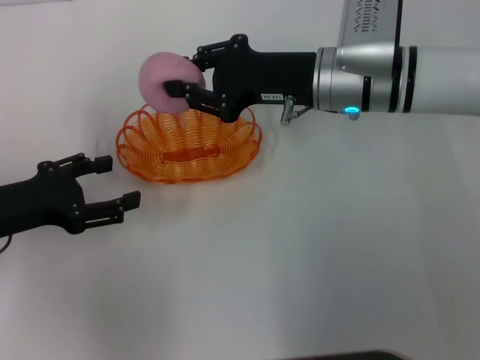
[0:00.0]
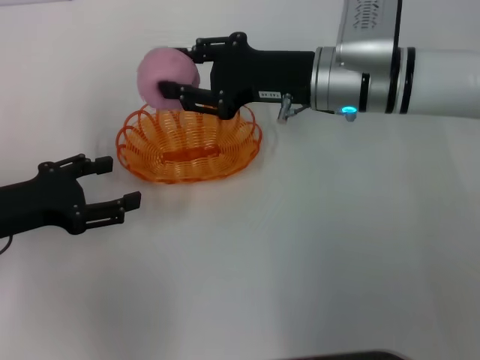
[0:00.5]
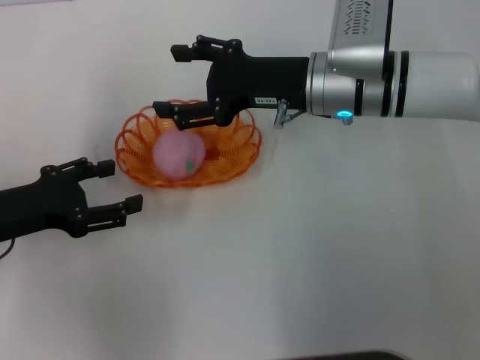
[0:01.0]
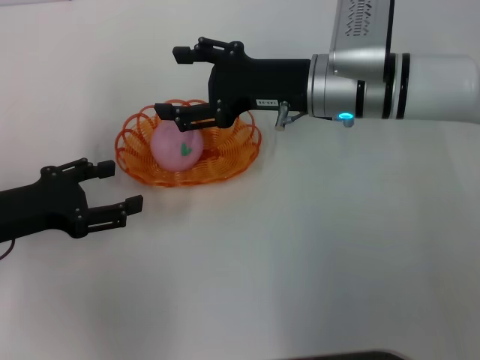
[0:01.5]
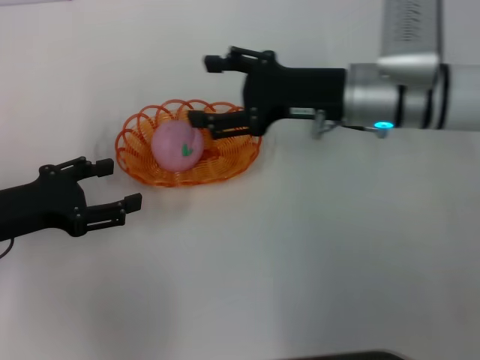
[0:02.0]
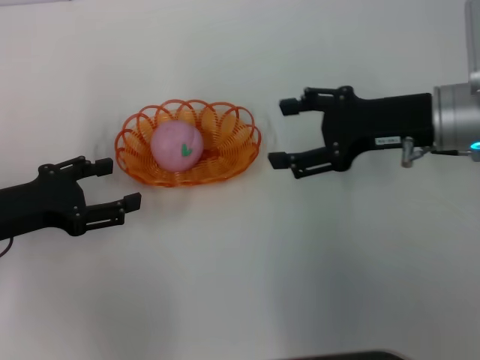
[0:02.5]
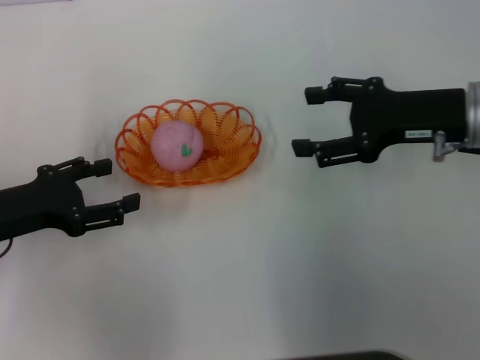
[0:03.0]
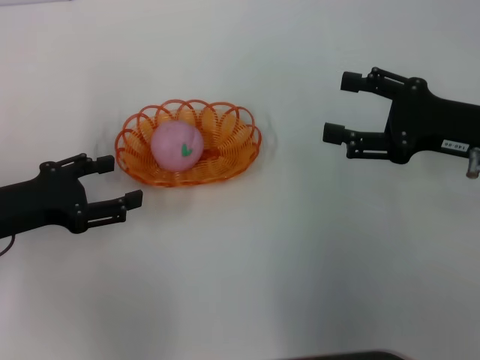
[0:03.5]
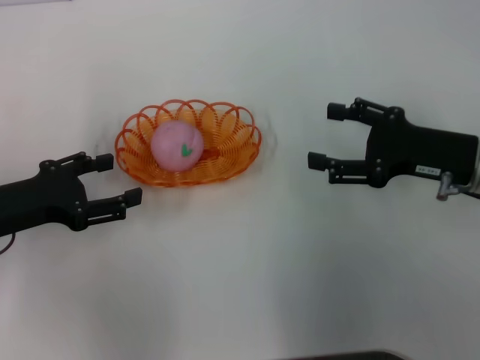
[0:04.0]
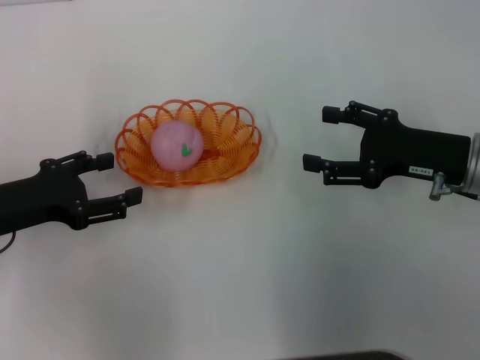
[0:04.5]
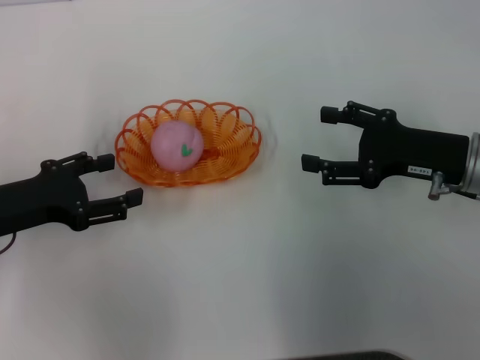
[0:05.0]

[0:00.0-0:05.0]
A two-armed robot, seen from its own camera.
Step, 0:00.0 to 0:02.0: Place the peach into the basket with the right gripper.
0:00.0 to 0:02.5: The right gripper travels to the right and backward by approximately 10 cm, and opens.
0:02.5 to 0:05.0: The right gripper shifts some 5 cm downward.

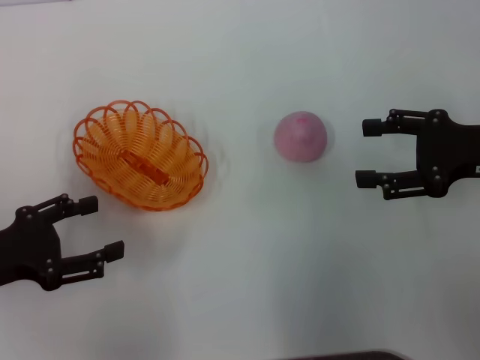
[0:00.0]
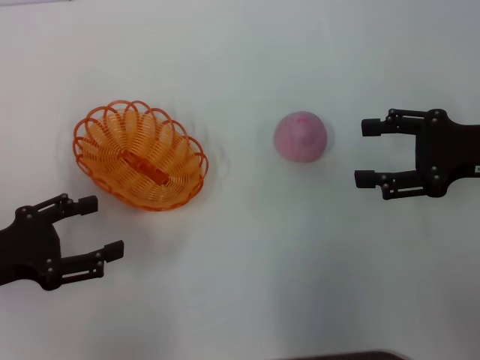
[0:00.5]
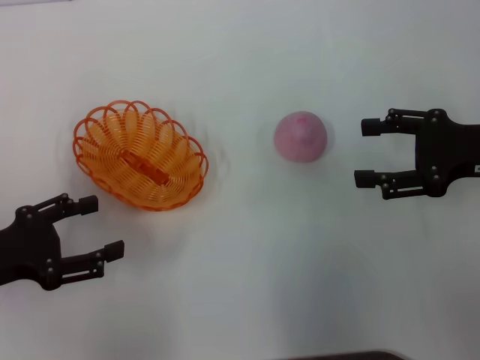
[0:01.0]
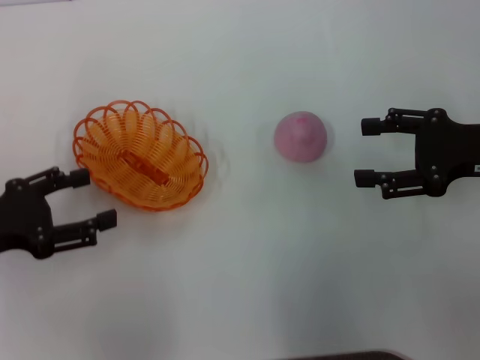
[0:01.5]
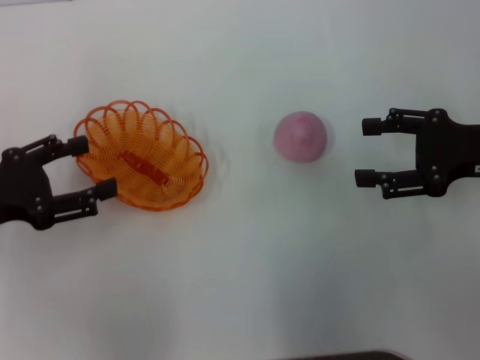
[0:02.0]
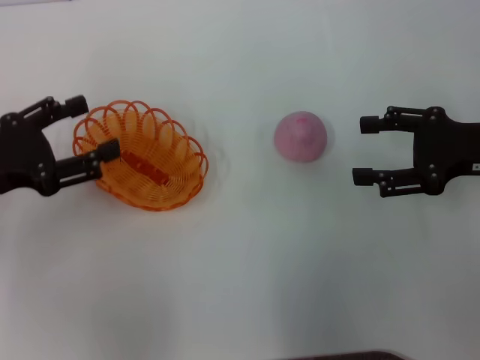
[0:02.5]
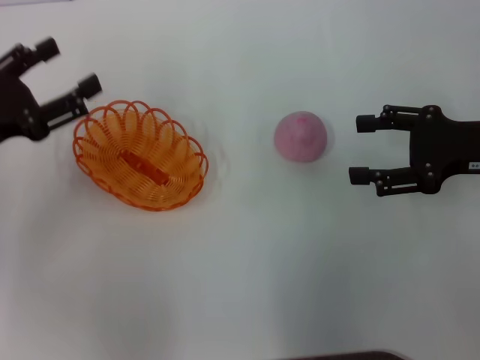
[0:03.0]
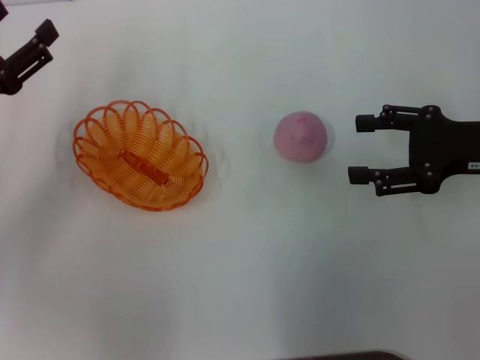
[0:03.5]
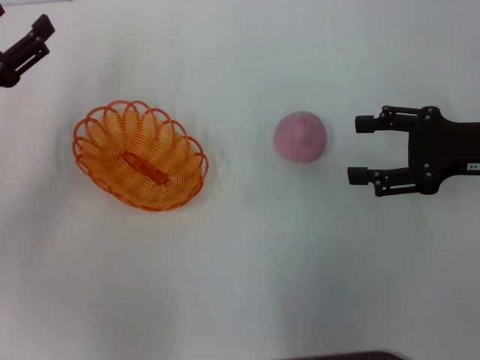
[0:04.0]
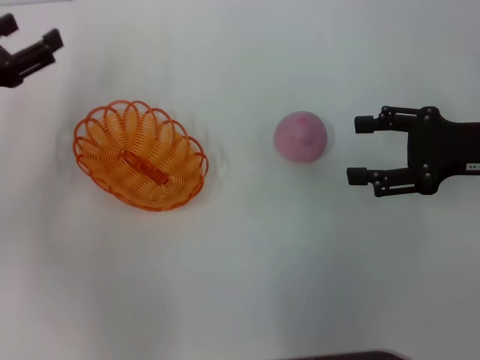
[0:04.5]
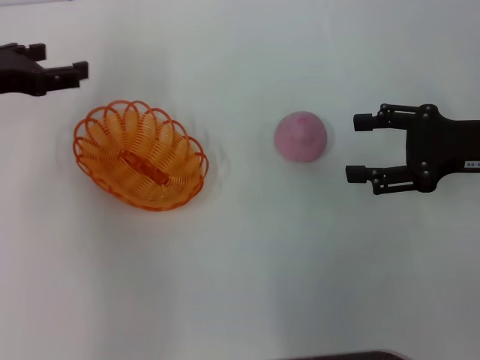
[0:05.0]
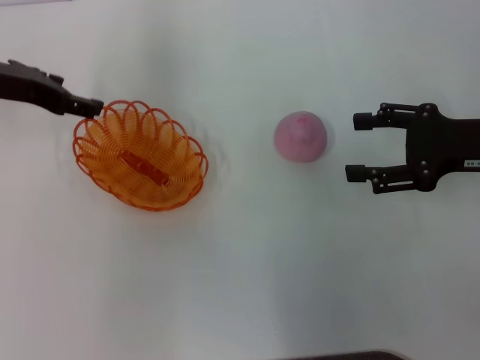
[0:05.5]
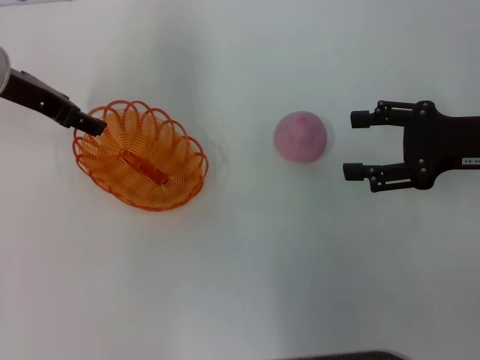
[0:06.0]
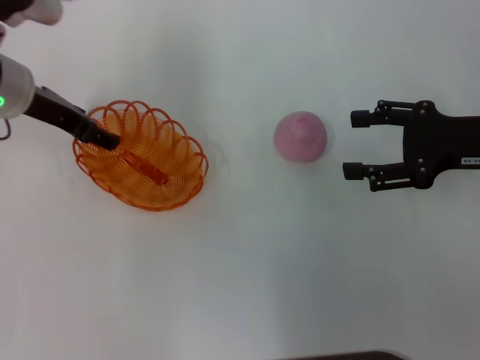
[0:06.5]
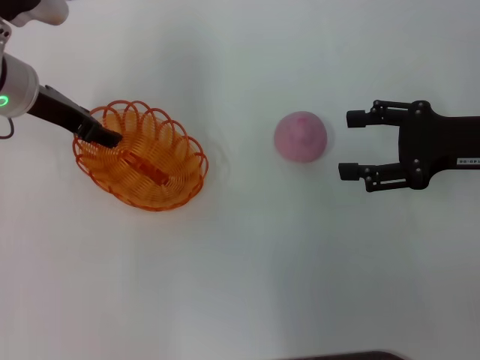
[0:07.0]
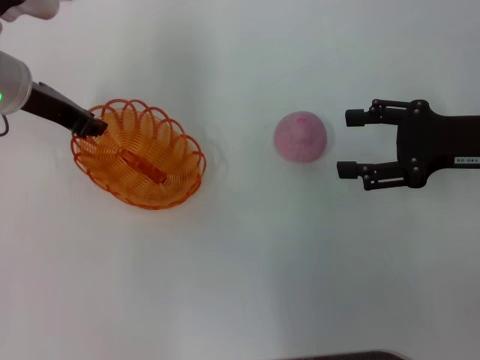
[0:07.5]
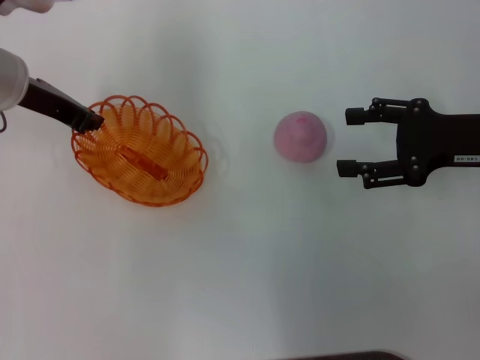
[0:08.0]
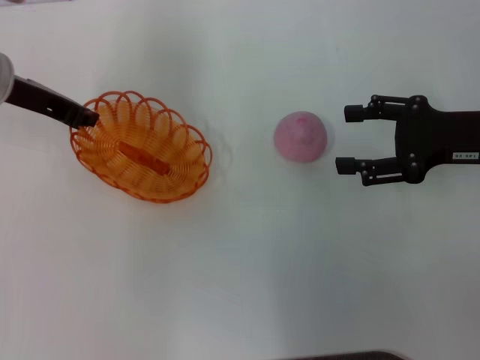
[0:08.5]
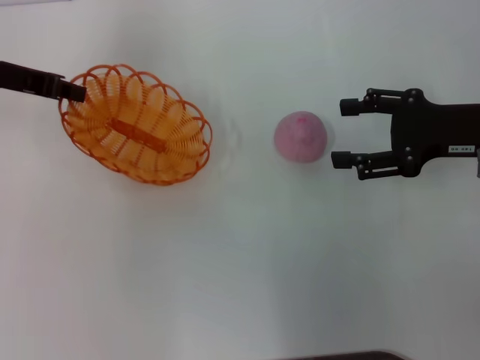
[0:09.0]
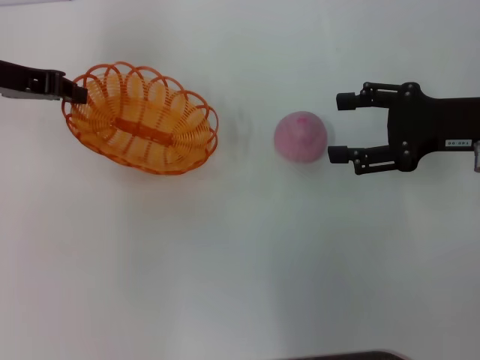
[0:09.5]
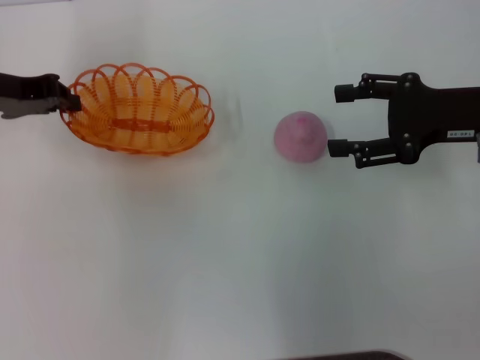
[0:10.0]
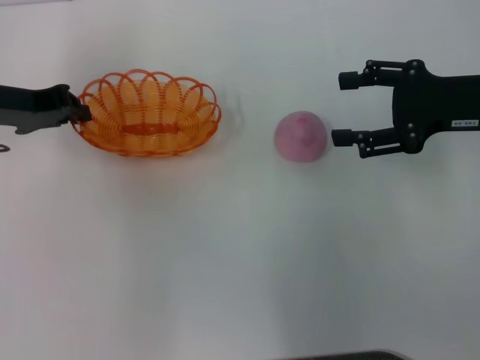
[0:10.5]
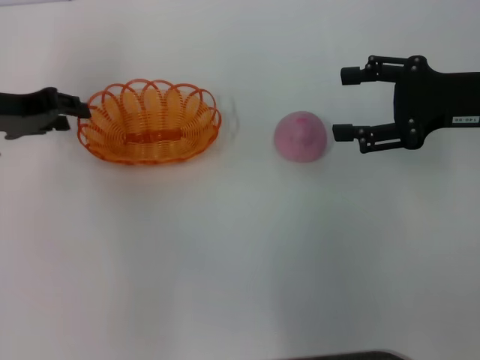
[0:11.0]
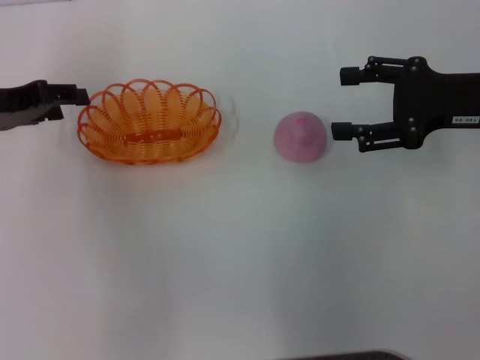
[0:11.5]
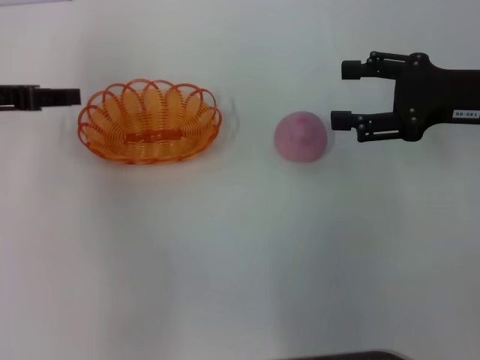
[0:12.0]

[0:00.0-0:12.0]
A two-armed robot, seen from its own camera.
Step, 0:00.0 to 0:08.5: Pick up the basket with the left gripper.
0:00.0 to 0:02.0: The grippers move only a little.
0:02.0 to 0:04.0: The left gripper shifts roughly 5 cm forward.
0:04.0 to 0:06.0: The left gripper goes some 15 cm forward, to the right and upward.
0:06.0 to 0:08.0: The left gripper closes up.
0:08.0 to 0:10.0: The left gripper is displaced to the left by roughly 5 cm.
0:10.0 to 0:12.0: The left gripper opens up.

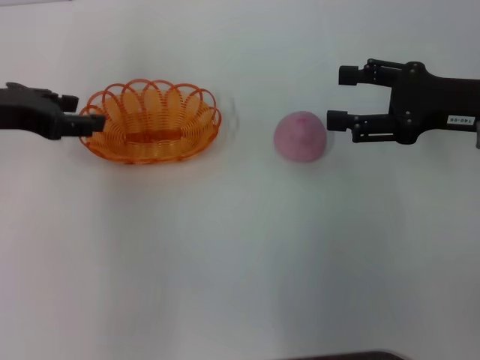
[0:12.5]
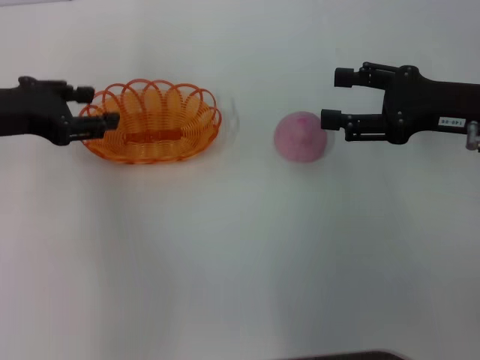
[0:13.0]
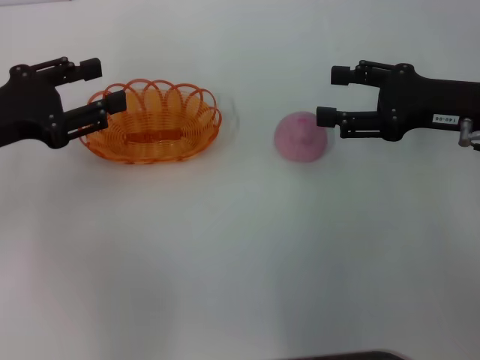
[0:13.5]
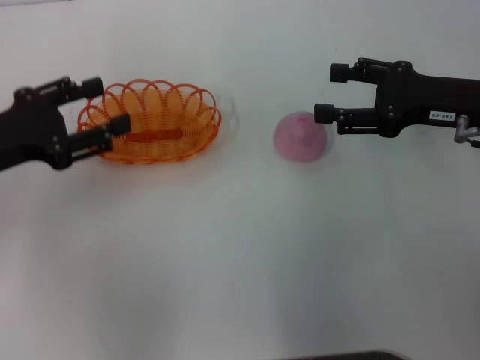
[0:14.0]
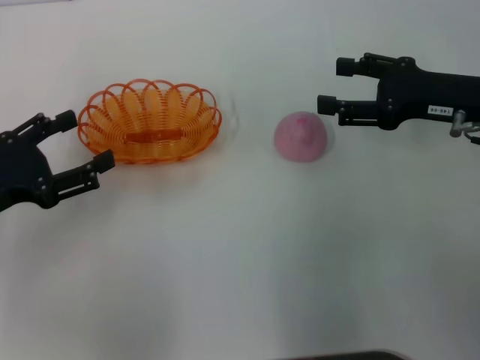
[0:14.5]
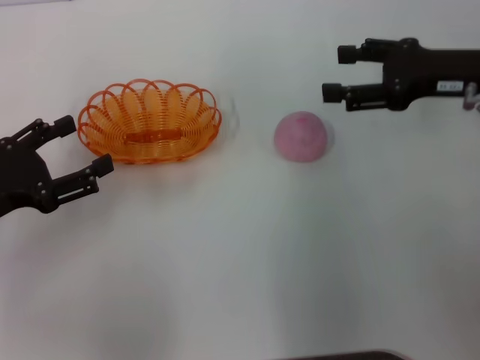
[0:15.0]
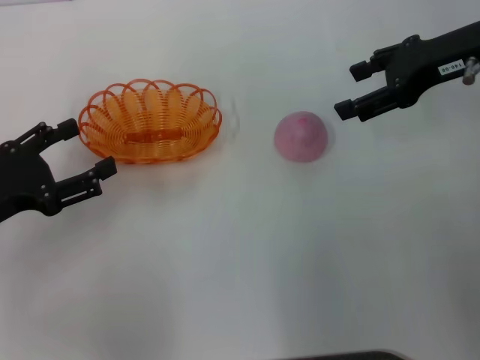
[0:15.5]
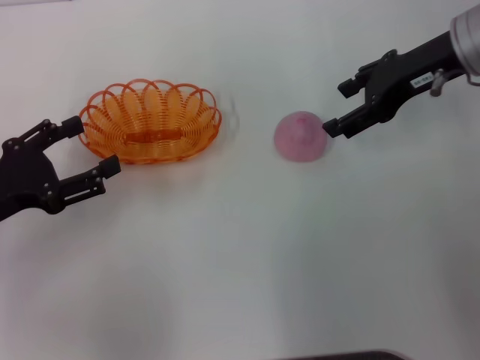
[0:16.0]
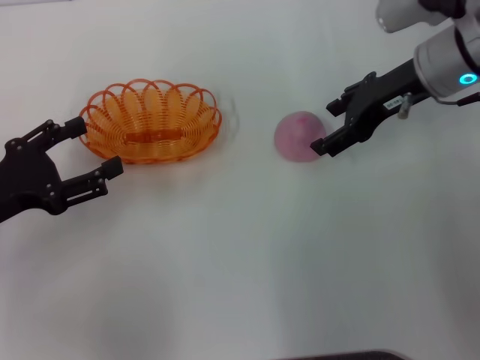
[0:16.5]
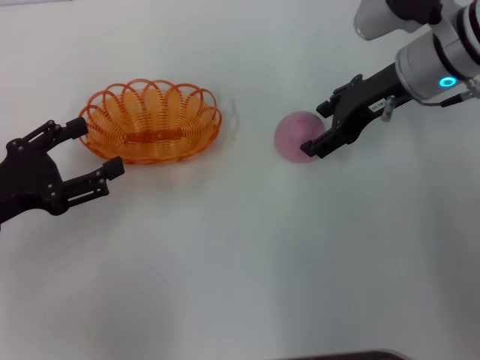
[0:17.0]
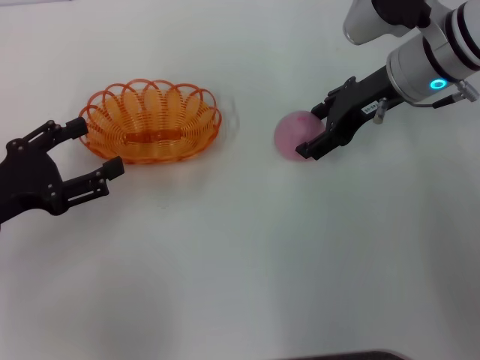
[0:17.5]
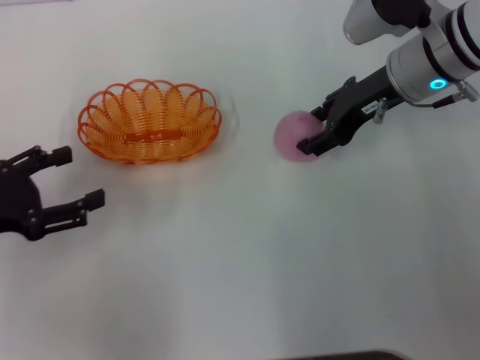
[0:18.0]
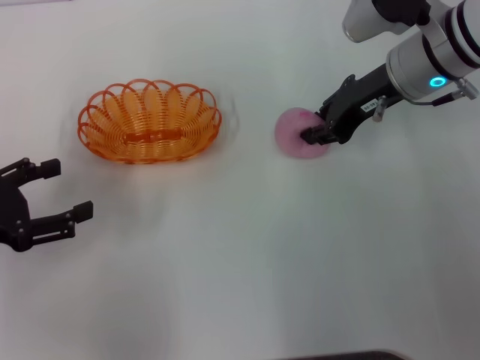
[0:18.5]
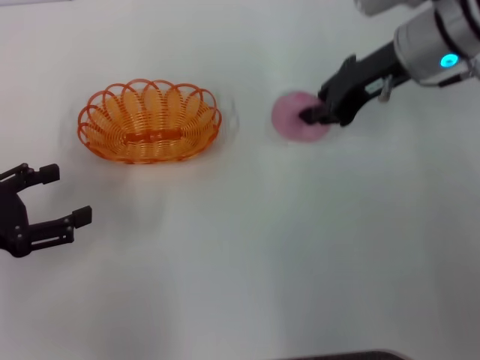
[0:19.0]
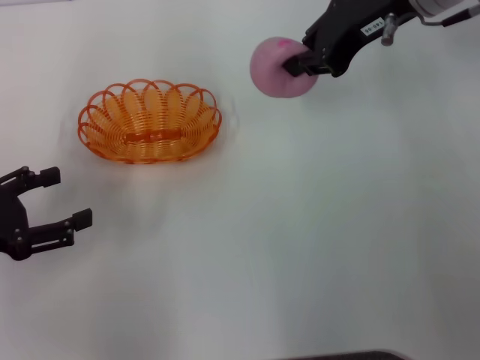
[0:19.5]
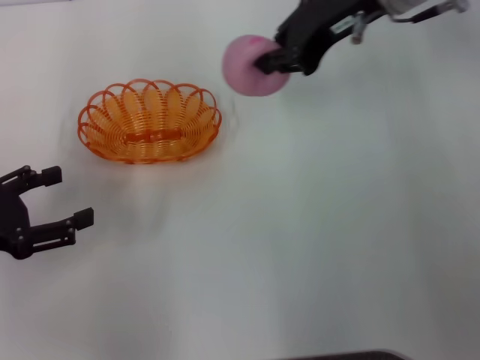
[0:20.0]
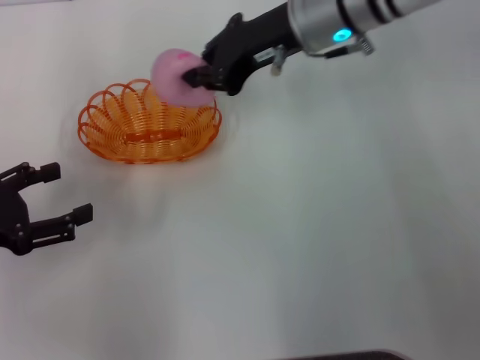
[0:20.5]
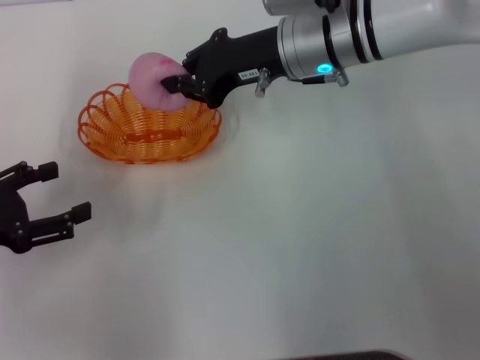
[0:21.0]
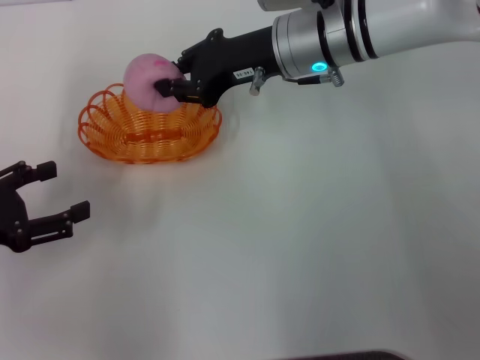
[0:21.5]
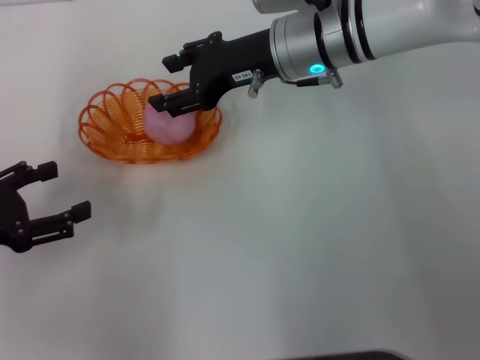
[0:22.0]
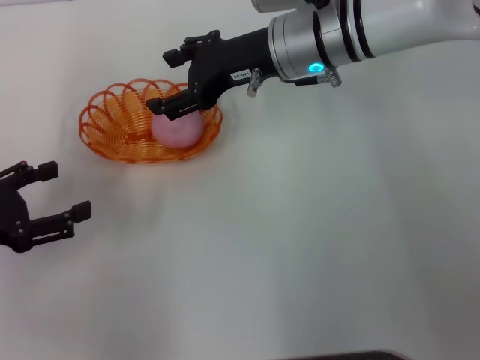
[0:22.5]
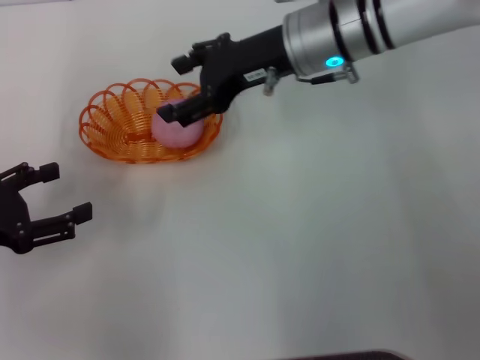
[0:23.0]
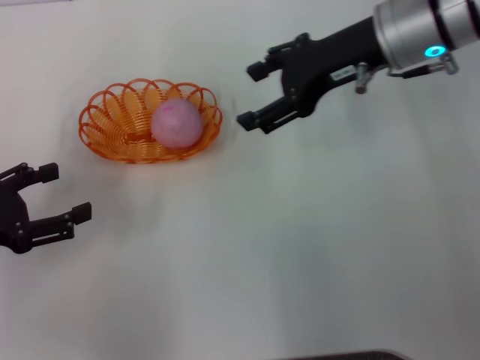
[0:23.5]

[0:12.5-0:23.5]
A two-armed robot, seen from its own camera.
Step, 0:13.5 to 0:19.0: Pick up the peach with the right gripper.
Step, 0:19.5 to 0:23.0: Place the peach into the basket with the right gripper.
0:12.5 to 0:14.5: The left gripper moves backward and downward, some 10 cm.
0:14.5 to 0:16.0: The right gripper is displaced upward and forward by roughly 10 cm.
0:16.0 to 0:18.0: The right gripper changes place by about 5 cm.
0:18.0 to 0:20.0: The right gripper travels upward by some 10 cm, and closes its fingers.
0:20.0 to 0:21.5: The right gripper travels downward and to the left by approximately 10 cm.
0:21.5 to 0:23.5: The right gripper travels to the right by approximately 5 cm, and opens up.
